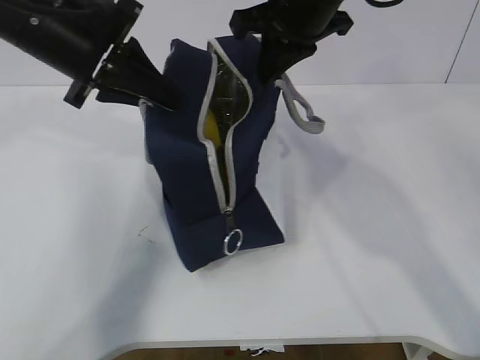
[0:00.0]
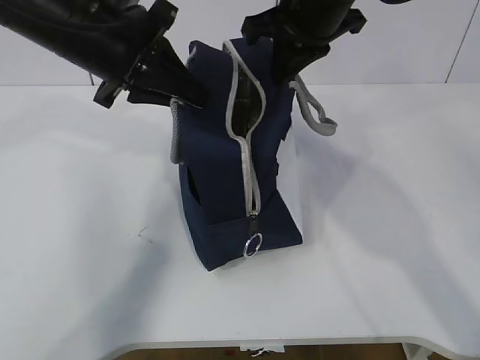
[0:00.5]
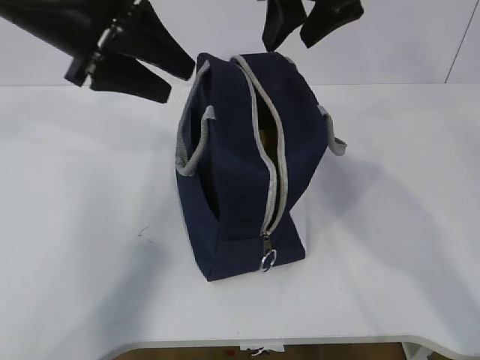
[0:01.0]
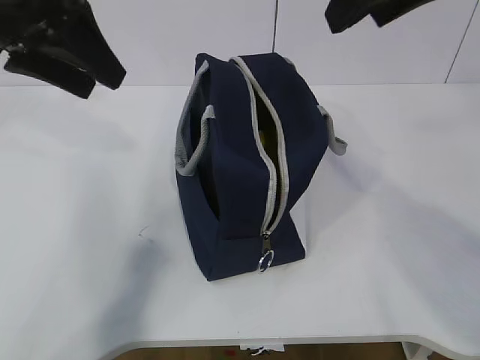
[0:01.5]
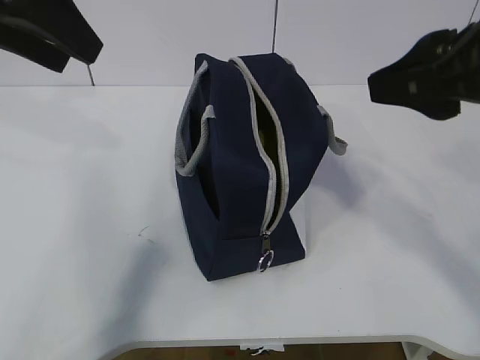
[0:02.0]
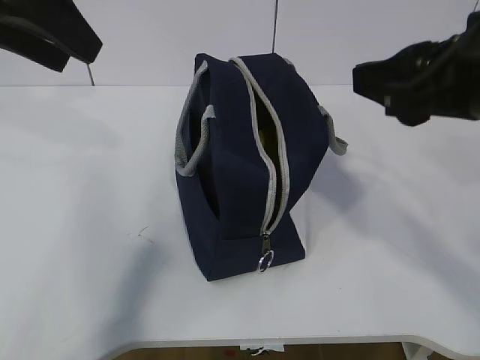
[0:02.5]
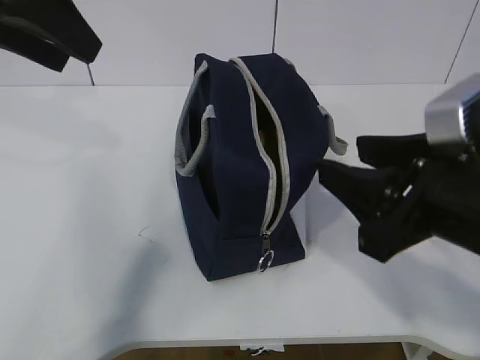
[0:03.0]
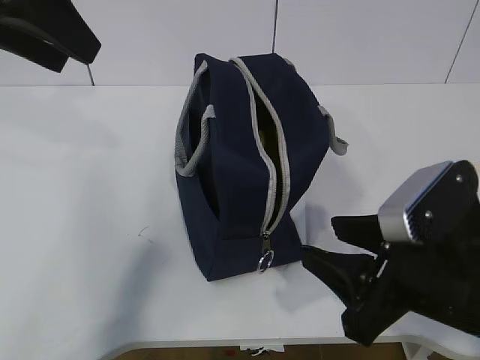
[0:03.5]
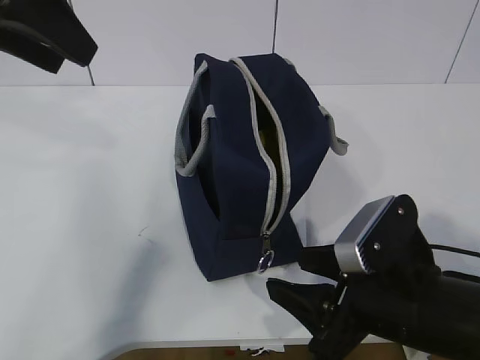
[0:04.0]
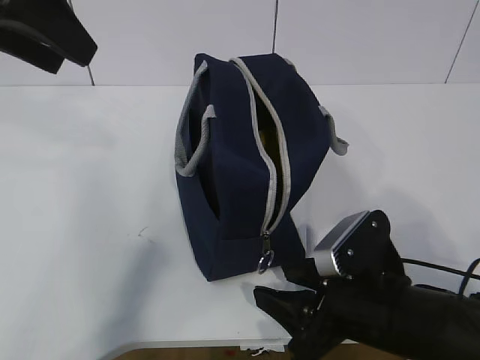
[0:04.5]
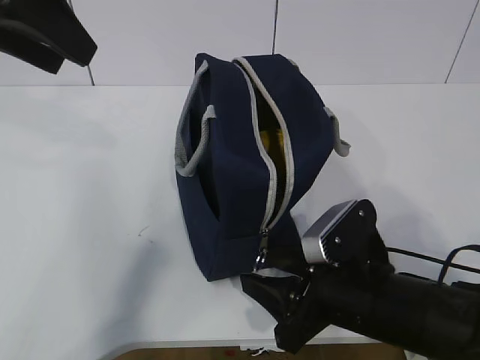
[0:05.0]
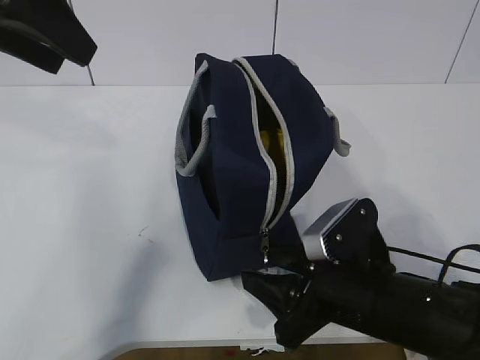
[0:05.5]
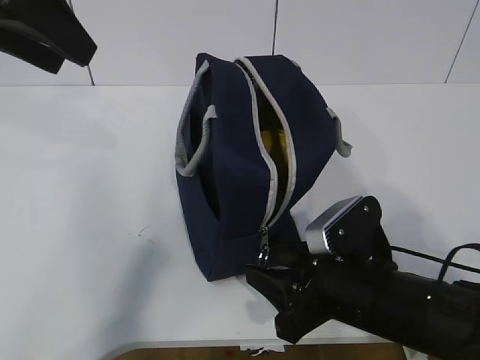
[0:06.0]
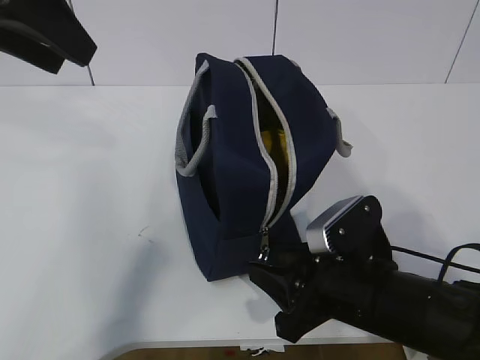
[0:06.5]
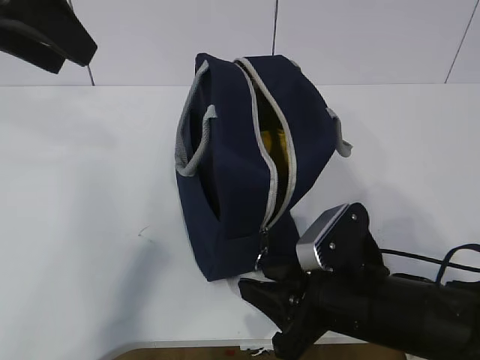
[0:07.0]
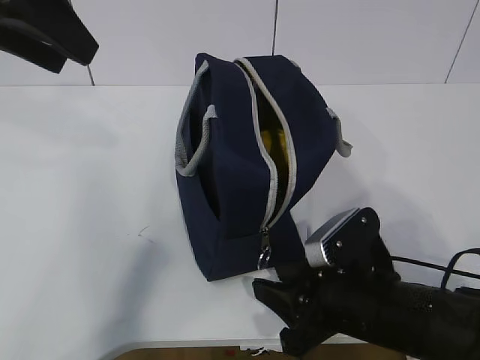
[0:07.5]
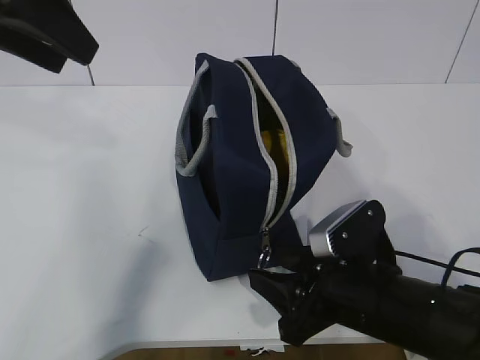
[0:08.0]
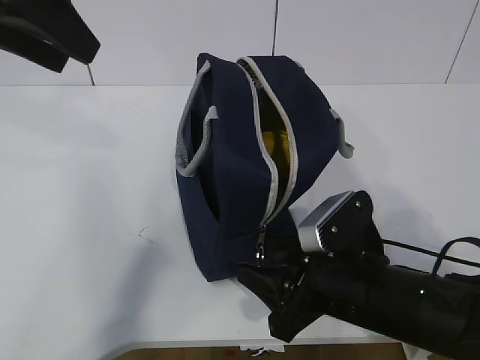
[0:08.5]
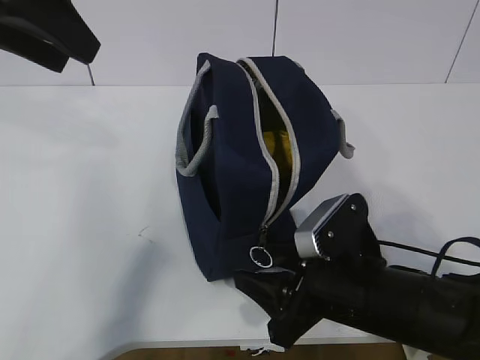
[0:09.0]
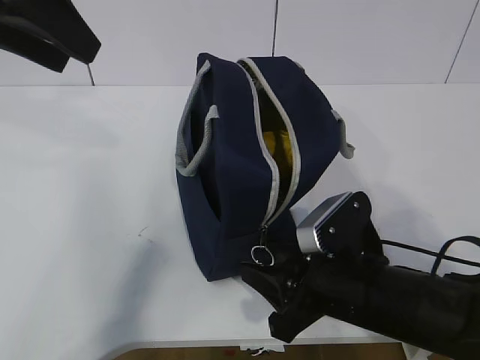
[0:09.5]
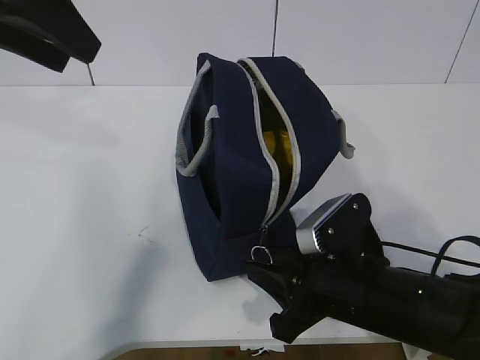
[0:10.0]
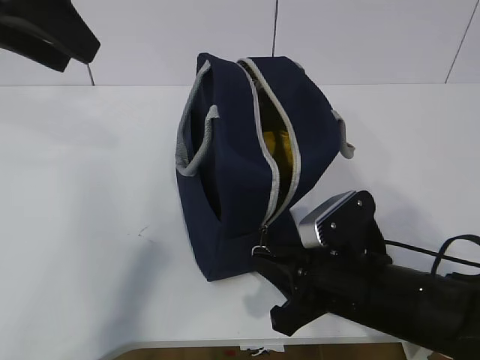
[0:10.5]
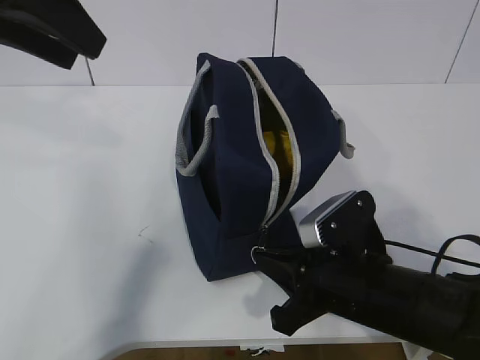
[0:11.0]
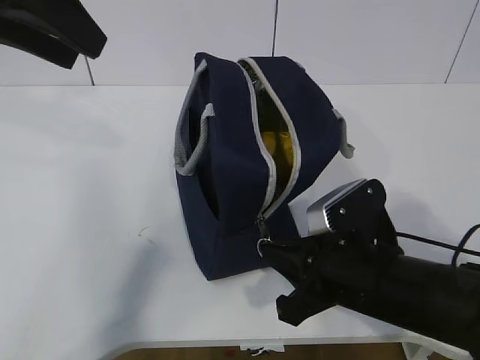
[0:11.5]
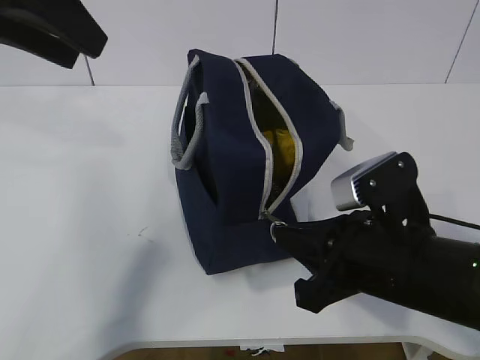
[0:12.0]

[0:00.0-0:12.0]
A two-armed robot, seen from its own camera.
Step, 0.0 to 11.5 s: Grab the lunch bag with your left hand.
0.0 to 2.0 s: The left gripper heads upward and backward, covering about 10 cm, and opens up; the right gripper travels backward and to the right by some 20 cm, and opens up.
2.0 to 4.0 s: The right gripper shifts approximately 20 cm downward.
4.0 to 8.0 s: The grippers move only a little.
8.0 to 10.0 s: The right gripper closes its fingers.
10.0 to 12.0 s: The right gripper is displaced upward by some 5 cm, and closes up.

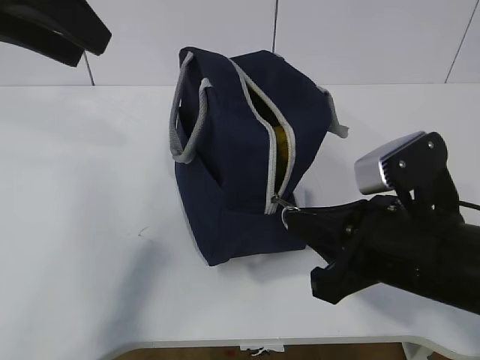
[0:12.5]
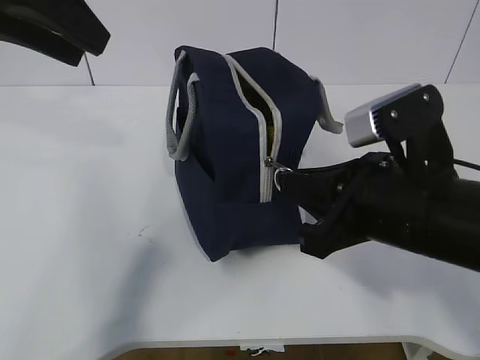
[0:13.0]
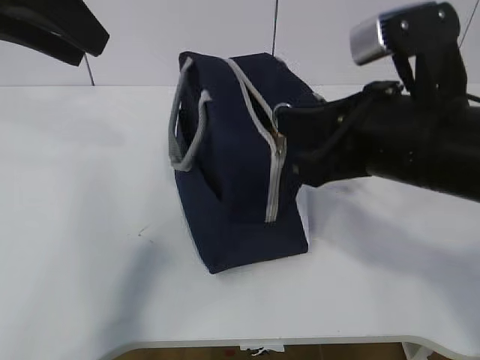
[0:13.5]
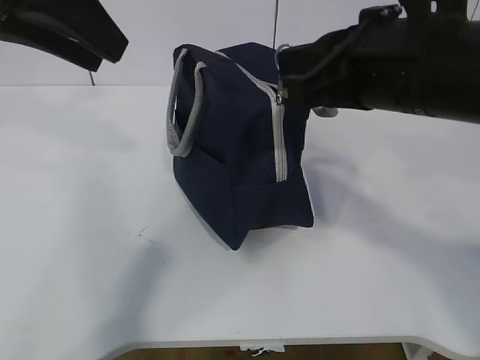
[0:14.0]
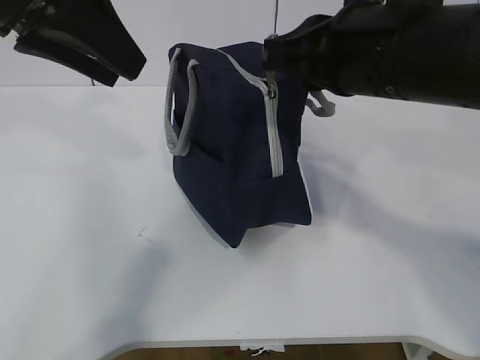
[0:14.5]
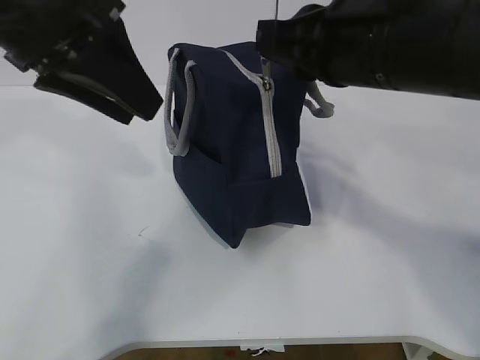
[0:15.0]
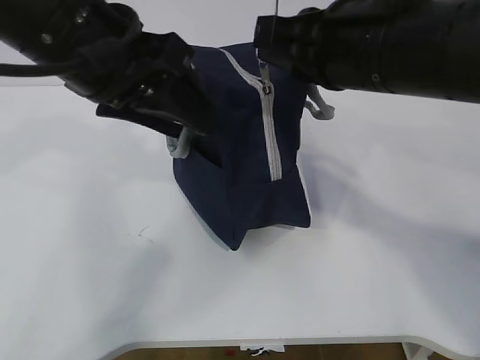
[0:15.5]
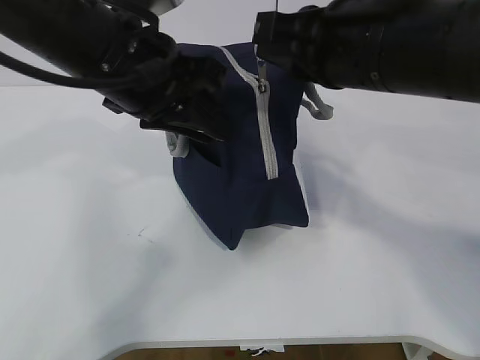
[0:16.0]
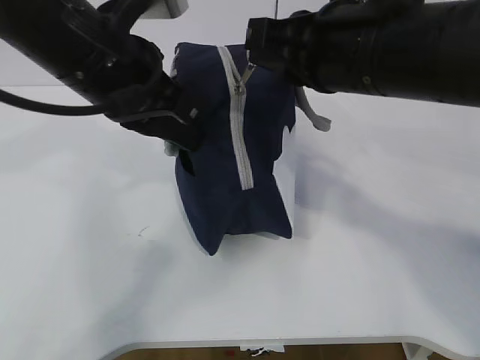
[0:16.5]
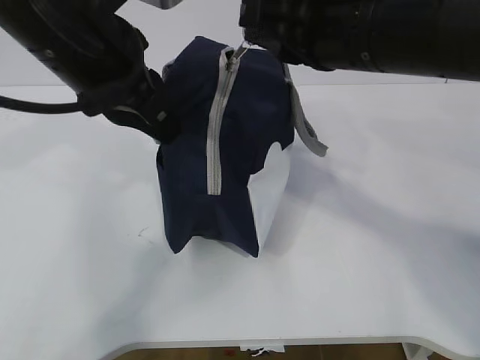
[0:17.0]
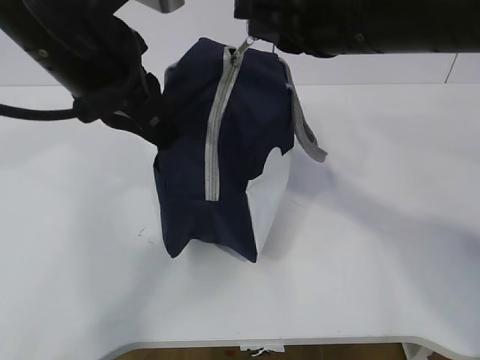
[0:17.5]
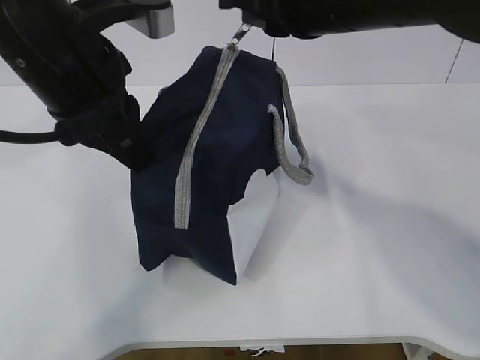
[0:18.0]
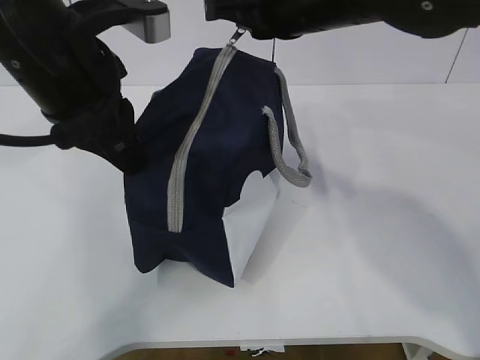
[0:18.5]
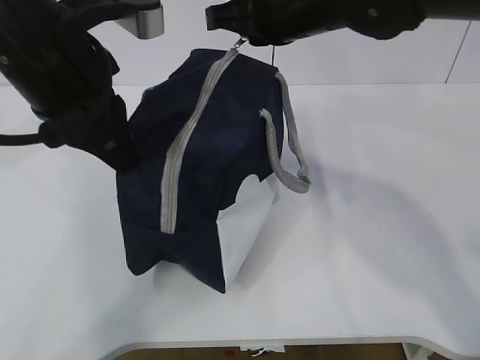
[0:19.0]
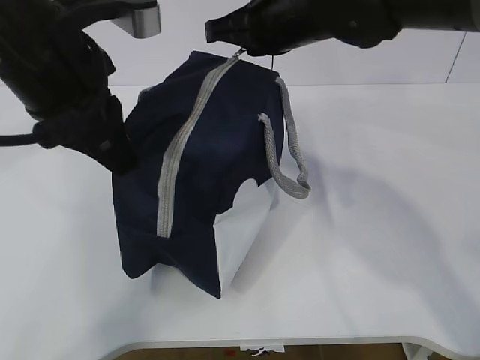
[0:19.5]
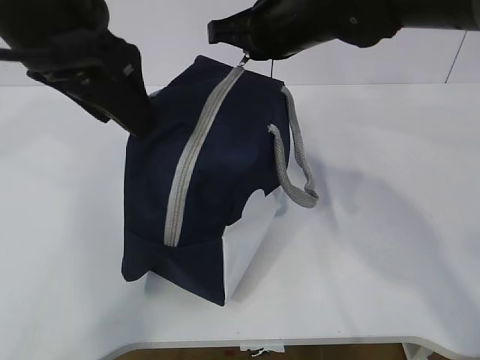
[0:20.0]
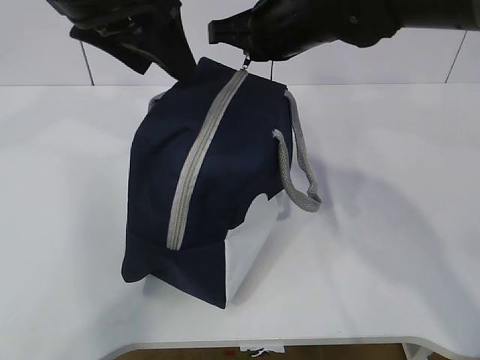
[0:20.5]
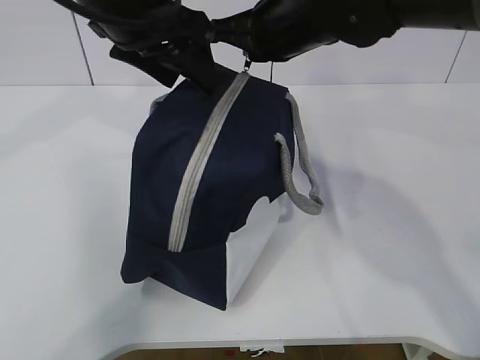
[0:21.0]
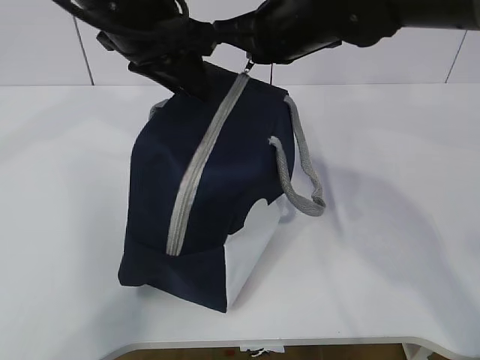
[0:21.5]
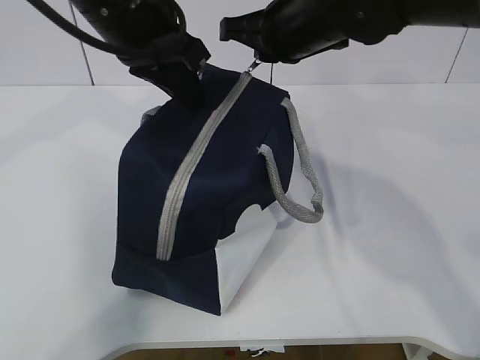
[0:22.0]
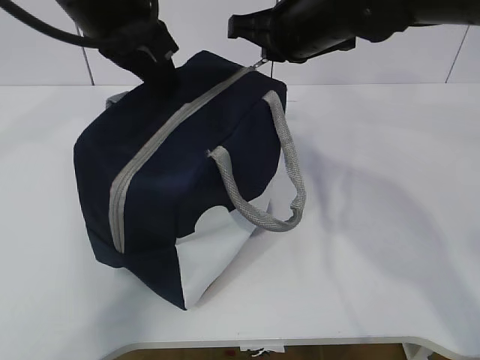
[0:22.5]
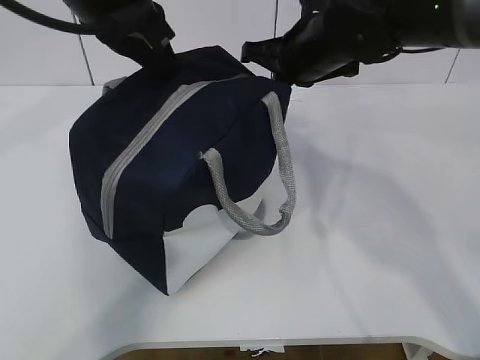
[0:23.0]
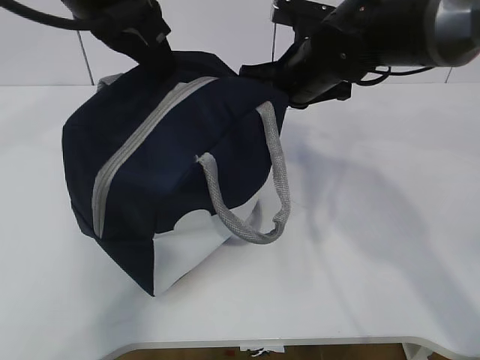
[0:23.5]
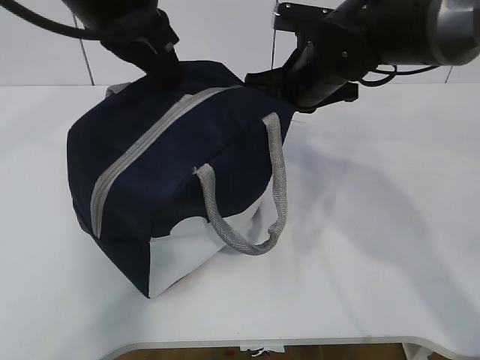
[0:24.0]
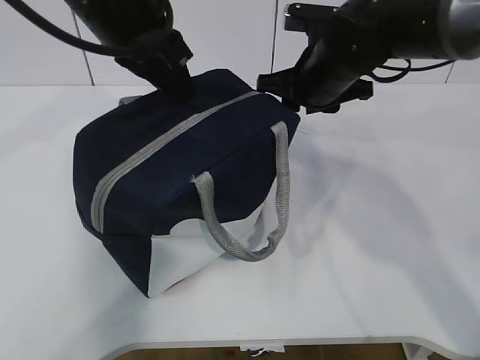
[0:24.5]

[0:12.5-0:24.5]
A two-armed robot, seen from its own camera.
Step, 12.5 to 15.0 s: Pull the zipper with your right hand.
12.5 to 14.5 s: The right gripper travels upward and forward by approximately 15 cm.
14.5 to 16.5 s: The left gripper is displaced downward and to the right by roughly 10 cm, and closes.
16.5 to 18.5 s: The right gripper is displaced forward by about 5 cm.
18.5 to 20.5 s: The left gripper shifts roughly 5 cm upward, and opens its fingers. The right gripper shifts by about 5 cm.
20.5 to 22.5 s: The left gripper closes up.
22.5 to 24.5 s: The right gripper moves downward, about 5 cm, and opens its fingers.

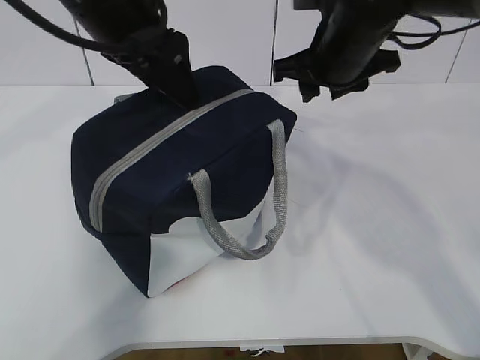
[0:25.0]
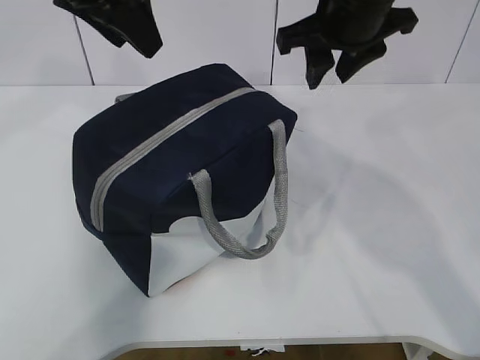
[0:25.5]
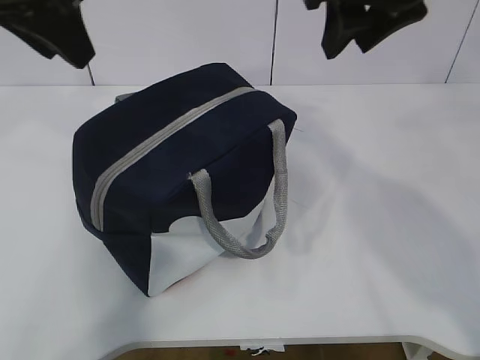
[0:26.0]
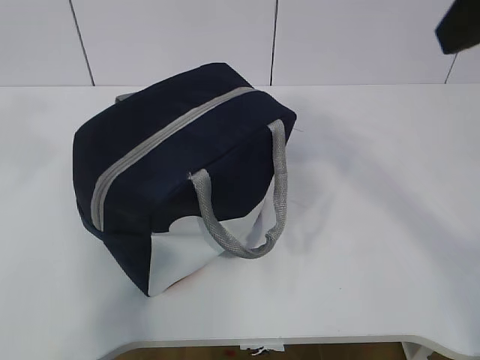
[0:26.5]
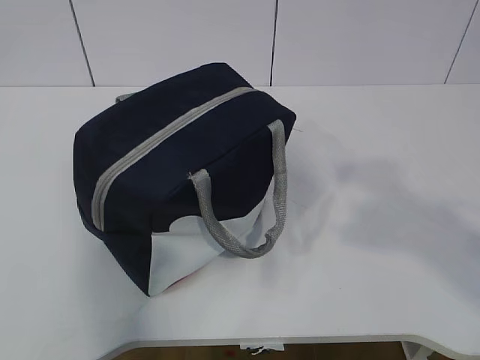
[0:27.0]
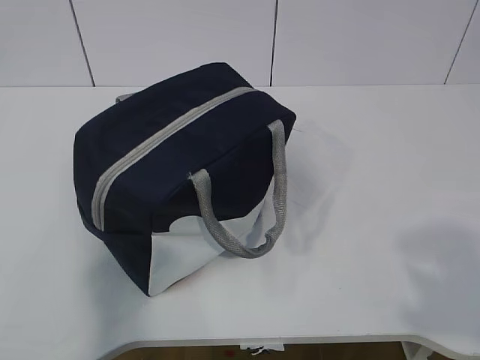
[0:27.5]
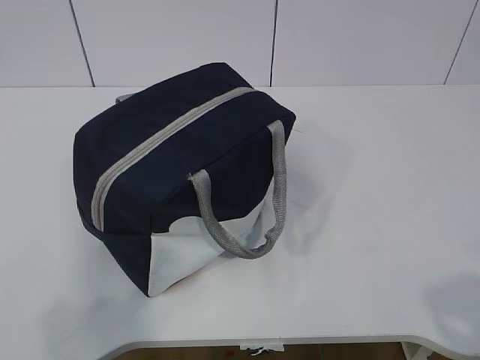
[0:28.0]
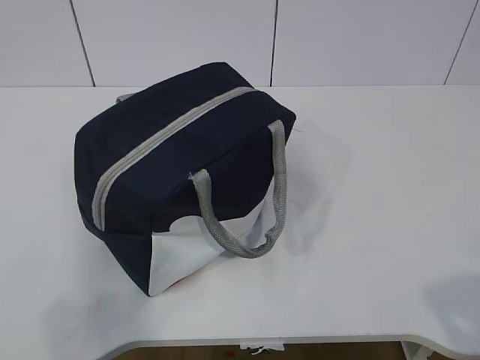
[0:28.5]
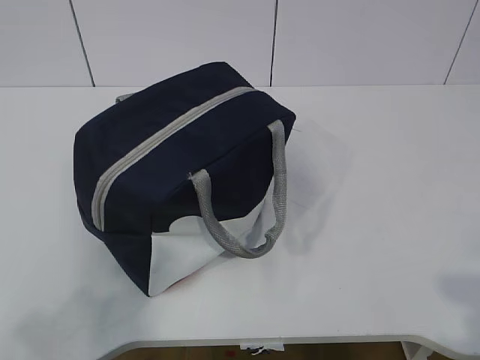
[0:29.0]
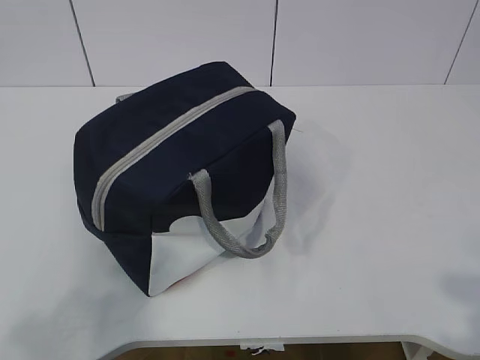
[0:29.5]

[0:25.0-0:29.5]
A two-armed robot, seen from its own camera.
25.0 to 27.0 s: The right gripper travels backward by roughly 35 cm, while the left gripper moves backward and to the left, some 35 cm.
27.0 to 29.5 s: The right gripper goes about 15 cm downward and backward.
